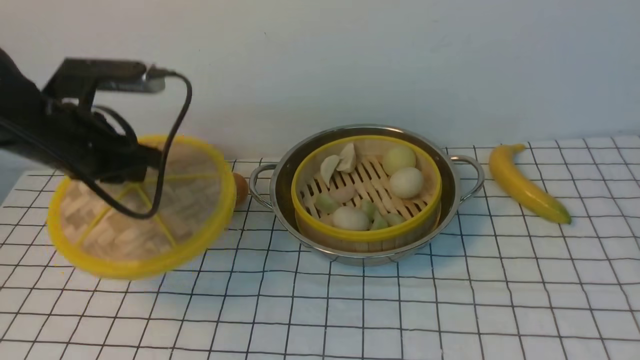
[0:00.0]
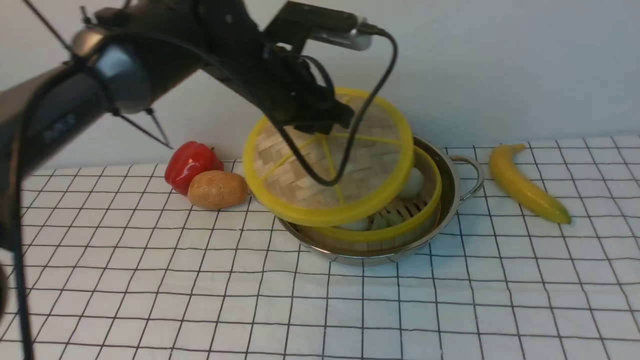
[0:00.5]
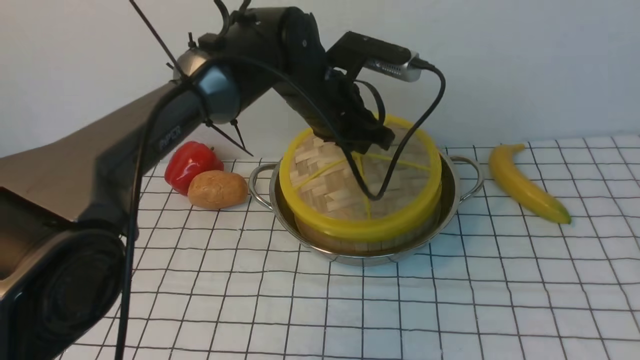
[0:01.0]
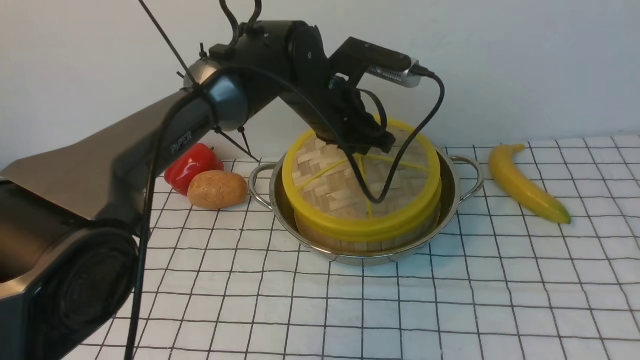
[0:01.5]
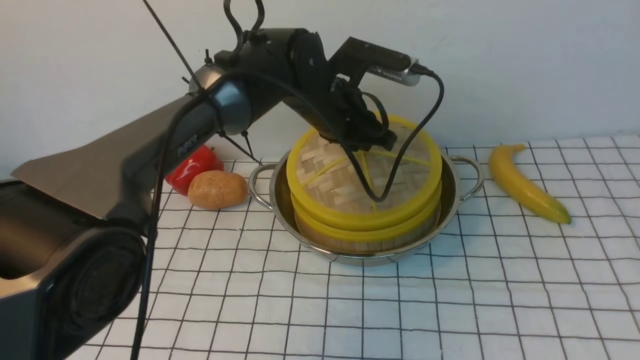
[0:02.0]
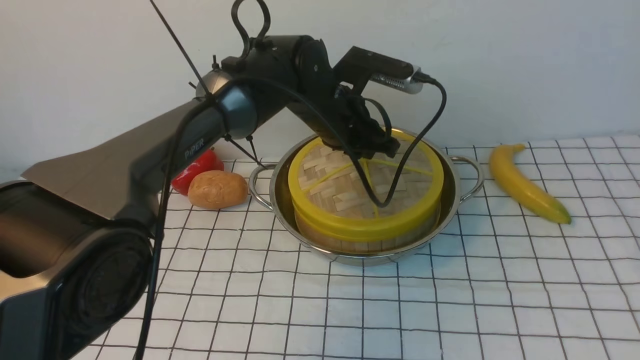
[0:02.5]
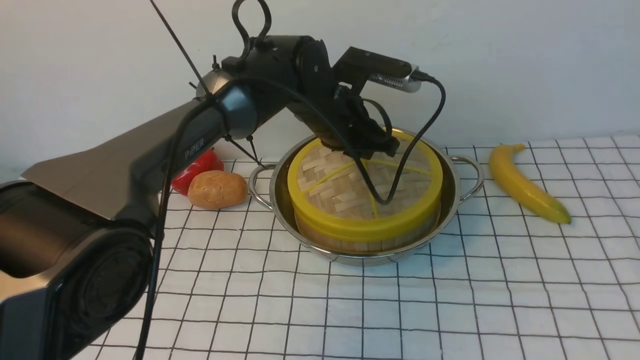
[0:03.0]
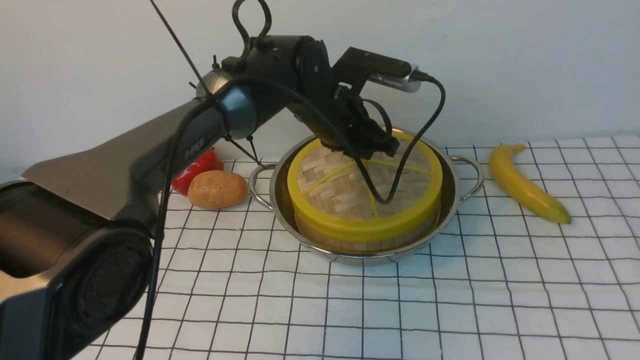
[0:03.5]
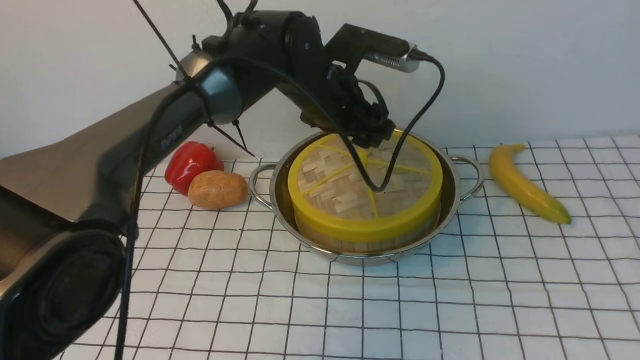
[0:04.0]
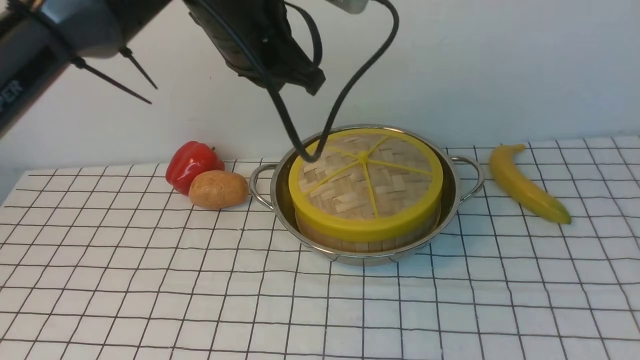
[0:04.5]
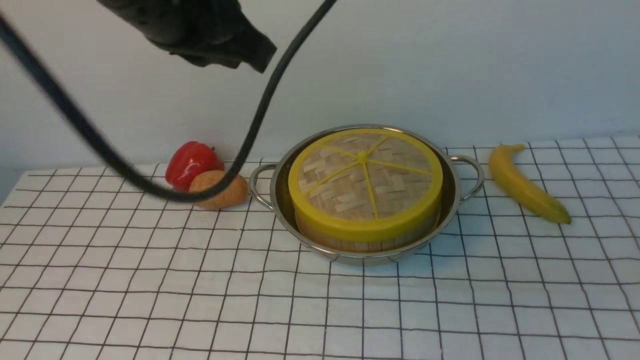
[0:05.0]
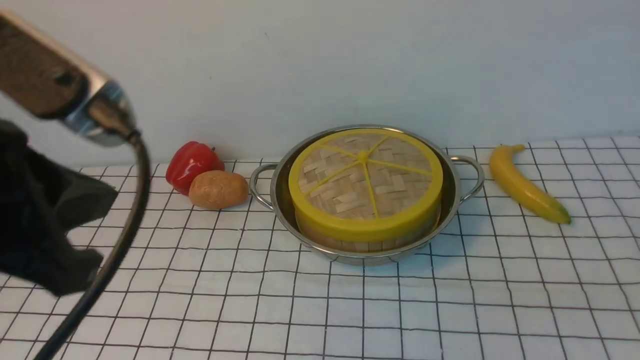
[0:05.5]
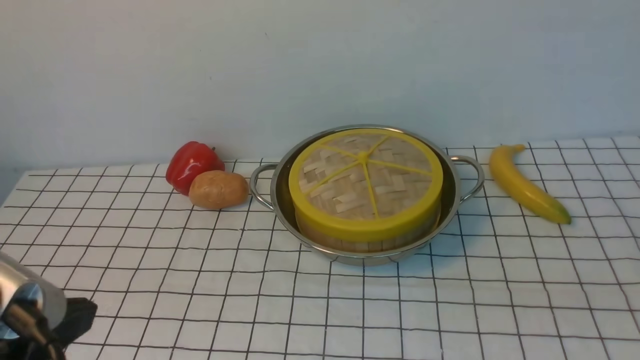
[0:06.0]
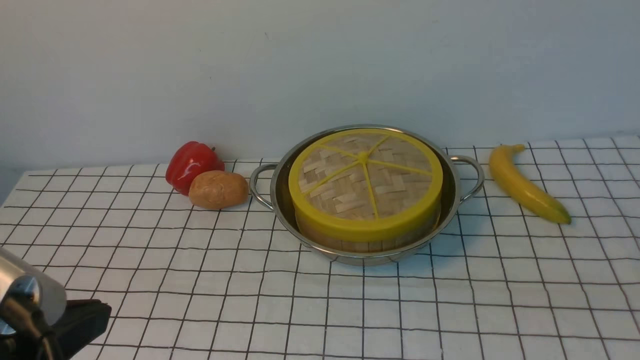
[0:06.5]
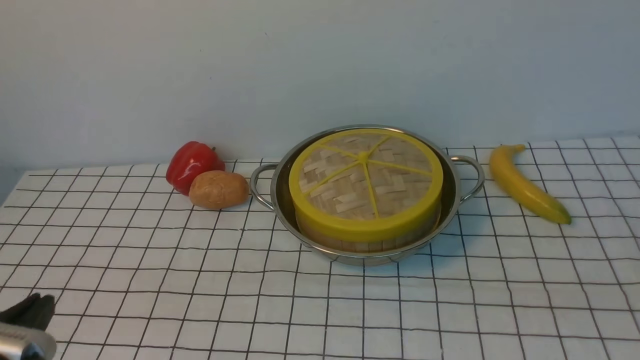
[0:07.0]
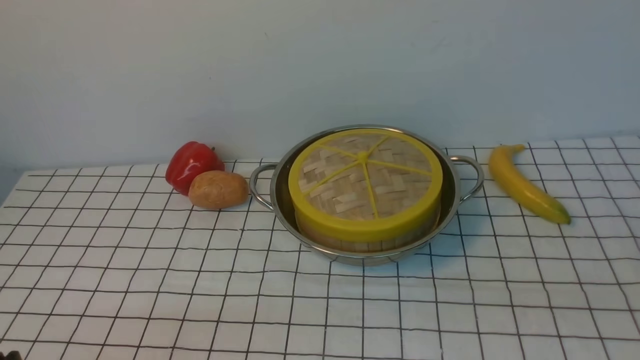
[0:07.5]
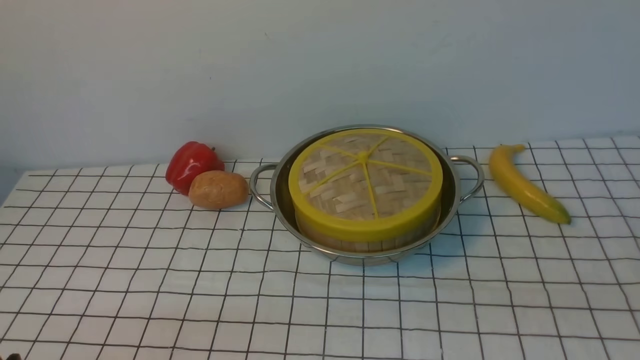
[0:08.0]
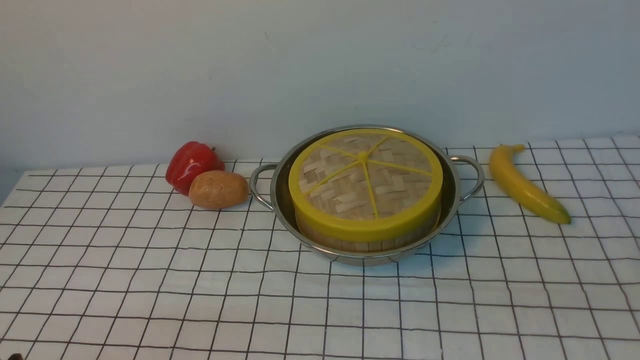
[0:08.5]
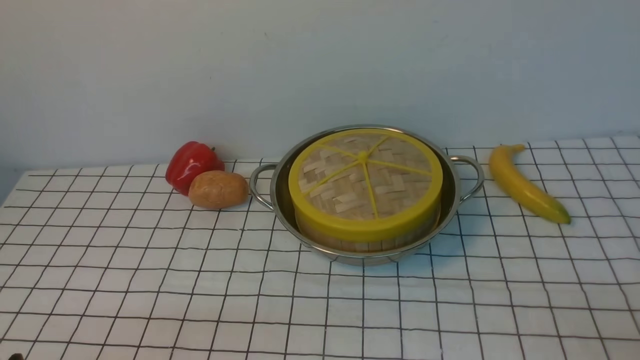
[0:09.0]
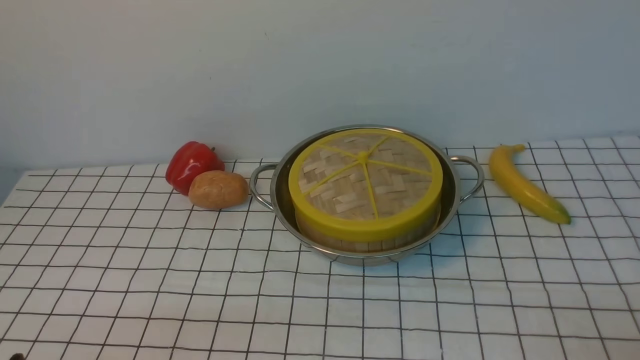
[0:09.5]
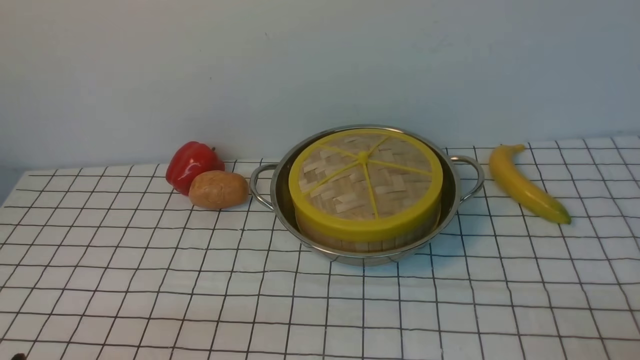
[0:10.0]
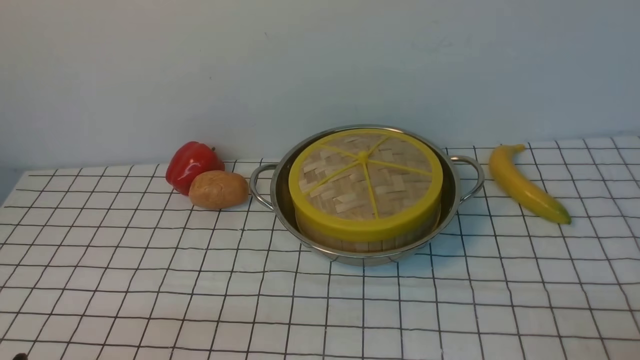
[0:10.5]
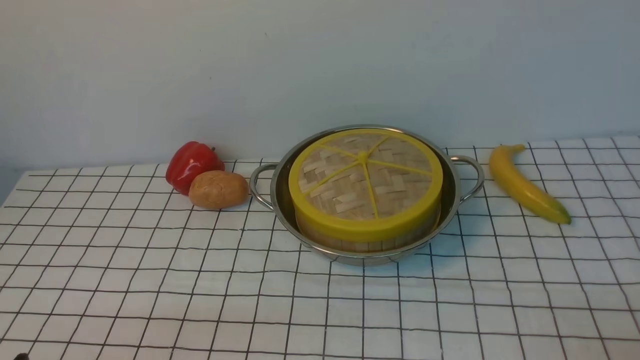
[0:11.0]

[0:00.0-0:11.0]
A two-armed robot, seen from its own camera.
Task of the whole recording: place the steamer in the pot on the white tablecloth, and put the lid on the steamer.
Step, 0:00.0 to 0:04.0: use the left arm to place the steamer lid on the steamer.
0:00.0 to 0:02.0: The left gripper heads to the right and forward, covering approximately 25 cm.
0:02.0 to 0:03.5: The two grippers keep their place.
0:03.5 to 0:05.5: The right gripper moves downward, some 25 cm, and closes up. The left gripper heads backward, to the left and upward, covering some 40 cm, and closes its fingers.
0:05.5 to 0:07.5: The left gripper travels downward by approximately 20 cm.
